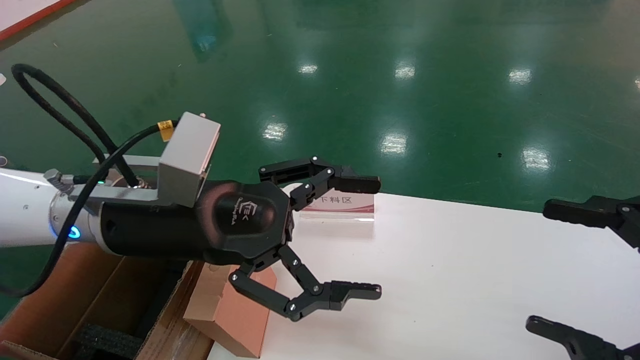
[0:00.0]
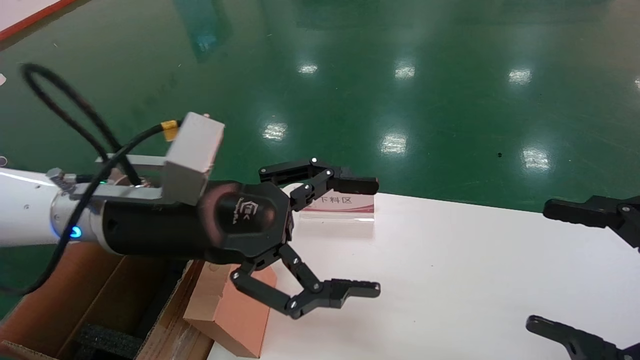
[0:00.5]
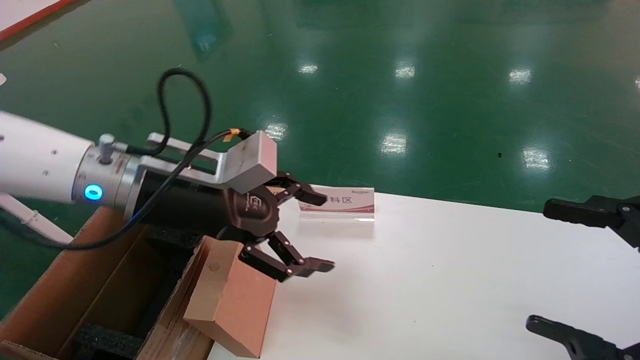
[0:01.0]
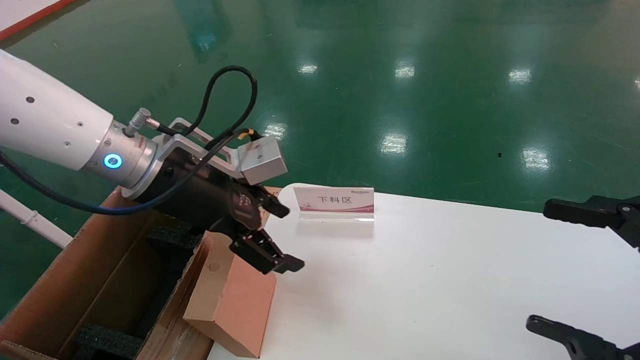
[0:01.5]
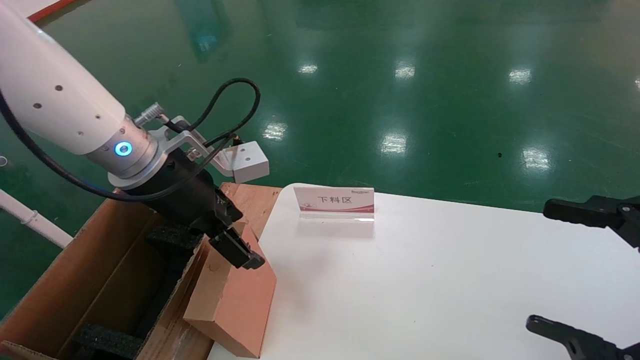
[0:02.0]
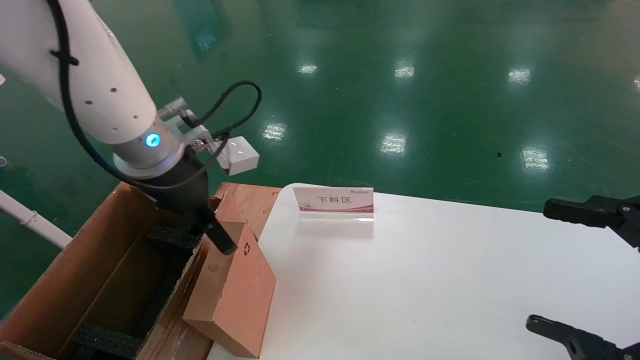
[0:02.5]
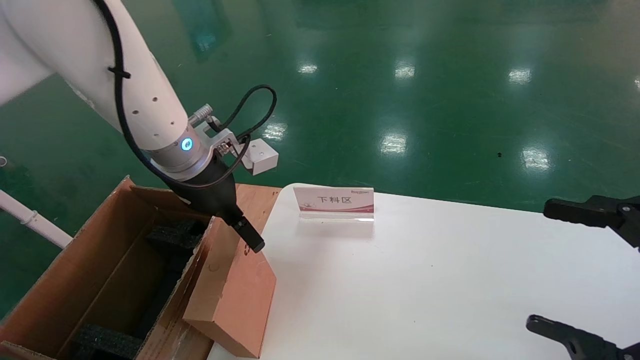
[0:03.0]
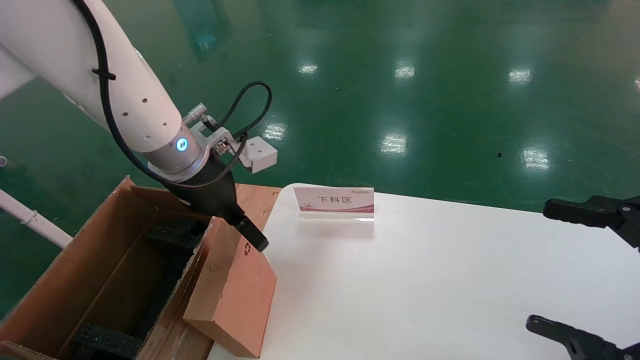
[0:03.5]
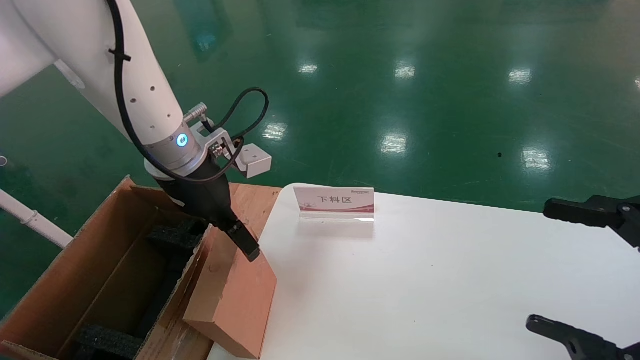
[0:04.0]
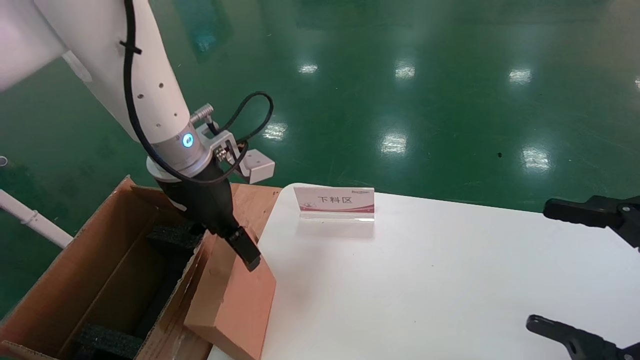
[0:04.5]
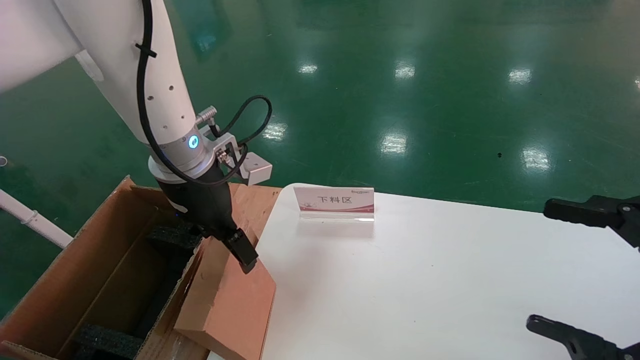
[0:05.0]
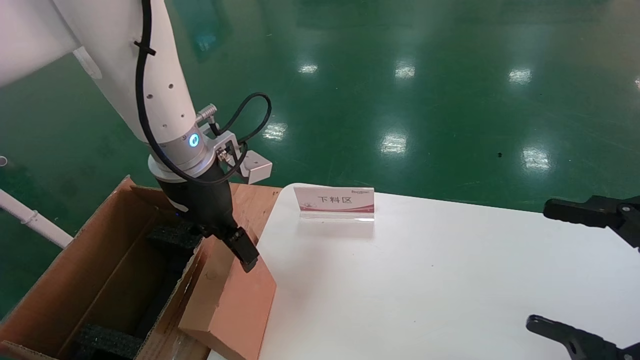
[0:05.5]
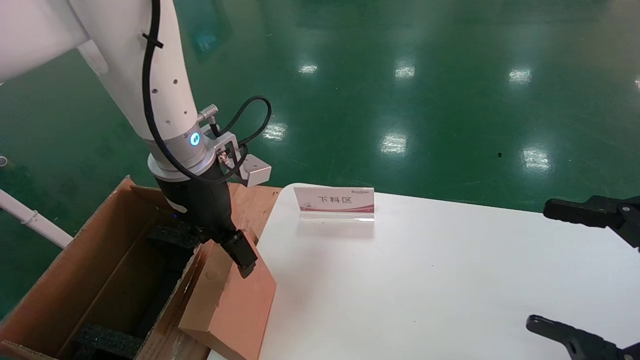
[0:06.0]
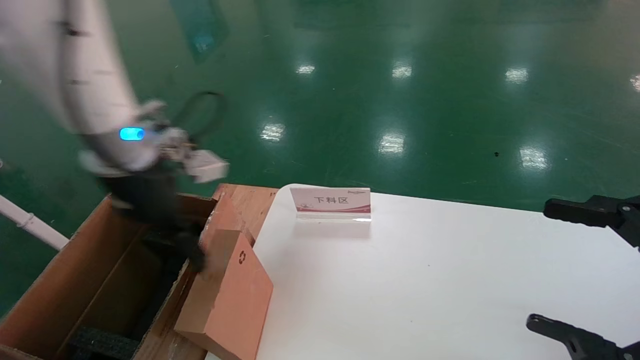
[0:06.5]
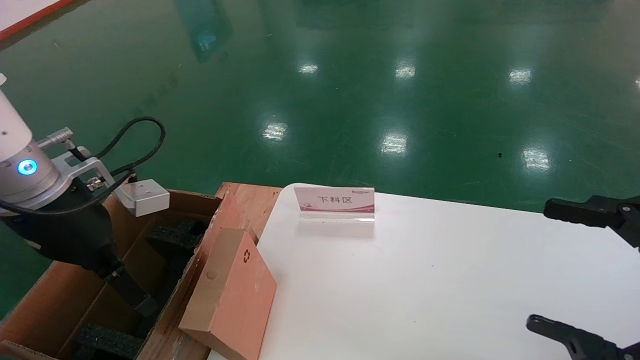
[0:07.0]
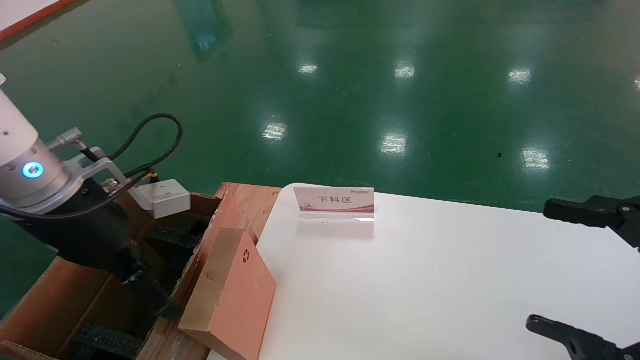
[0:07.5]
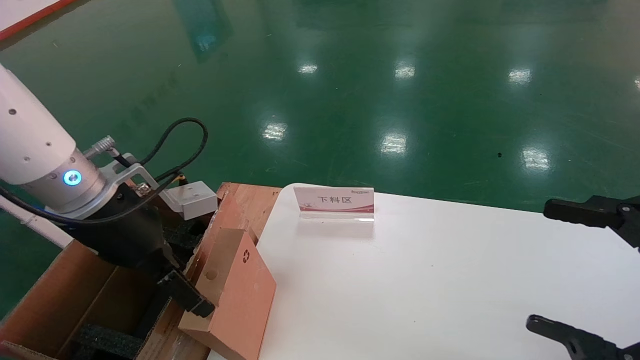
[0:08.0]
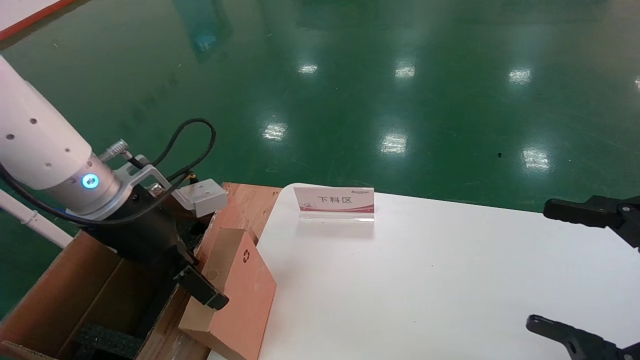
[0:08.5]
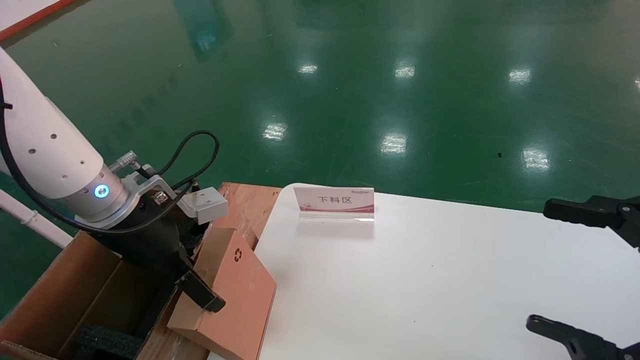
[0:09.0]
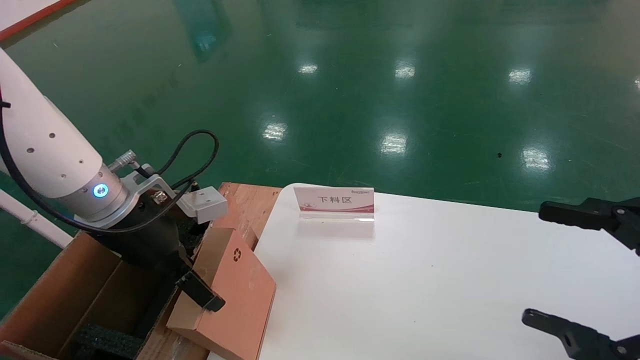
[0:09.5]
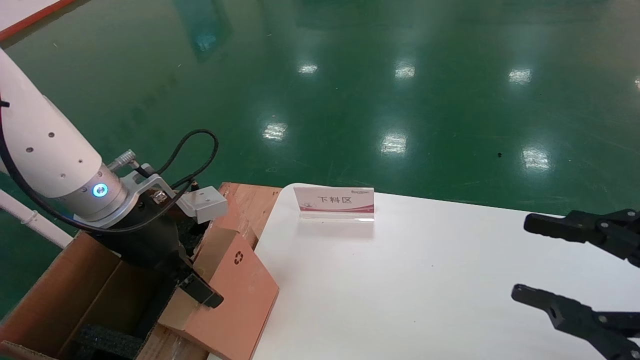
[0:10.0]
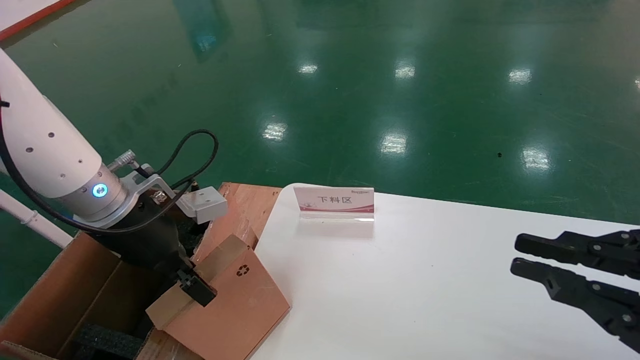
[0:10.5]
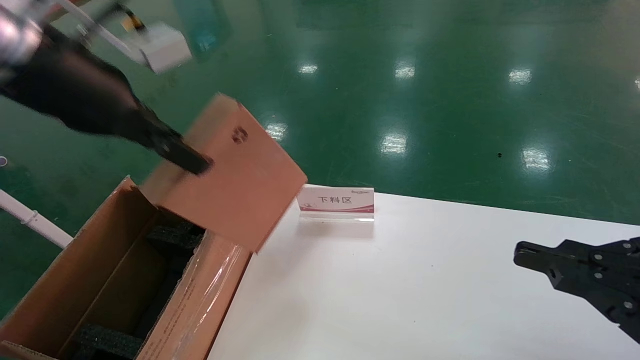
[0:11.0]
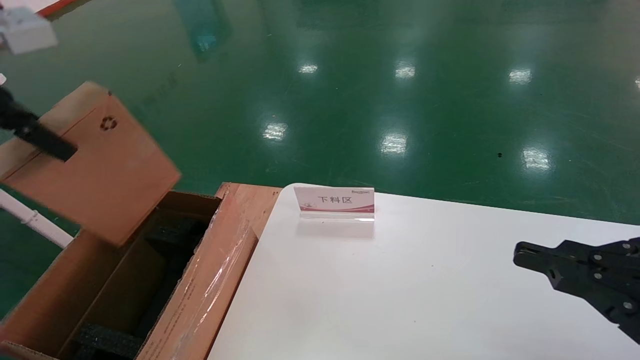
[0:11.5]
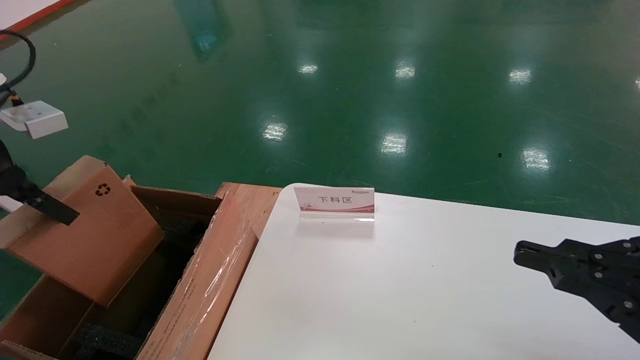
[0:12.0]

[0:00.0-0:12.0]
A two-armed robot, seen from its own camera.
Task of the whole recording: pick up the small cardboard box and load it into the large cardboard box.
Step, 0:01.0 to 0:10.5: Pick up the mouse and power cord box.
0:00.0 to 0:02.0: The left gripper shifts about 5 cm forward.
0:04.0 to 0:06.0: The grippers stay close to where they were, moving slightly.
0:06.0 to 0:08.0: The left gripper heads to the left and backward, covering about 10 cm.
0:08.0 to 0:10.0: The left gripper closes its fingers; the right gripper closes its fingers.
0:10.0 to 0:12.0: The left gripper moves to the left and upward, approximately 20 cm, and closes its fingers; the right gripper closes.

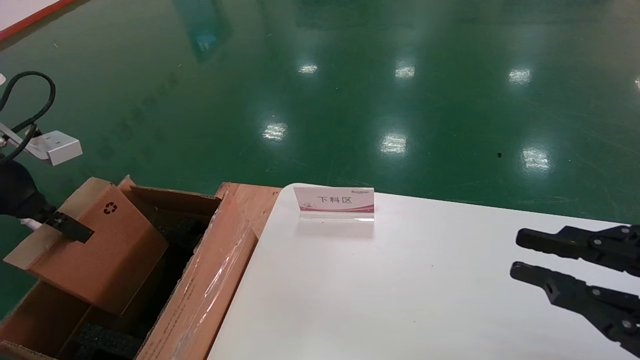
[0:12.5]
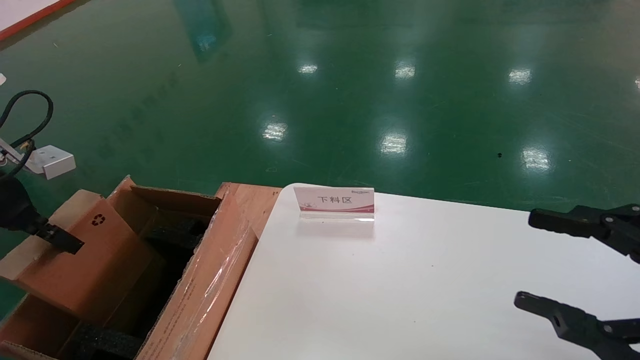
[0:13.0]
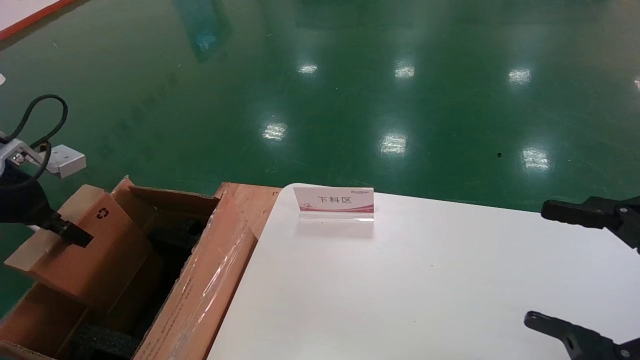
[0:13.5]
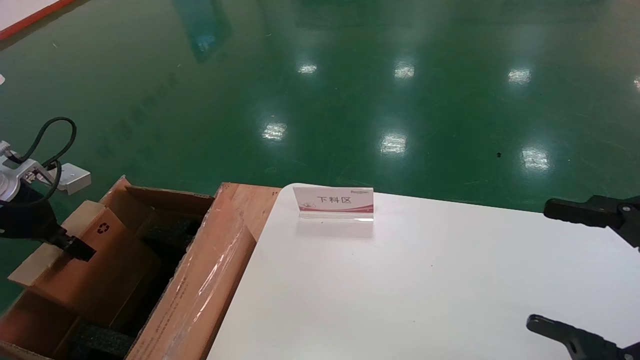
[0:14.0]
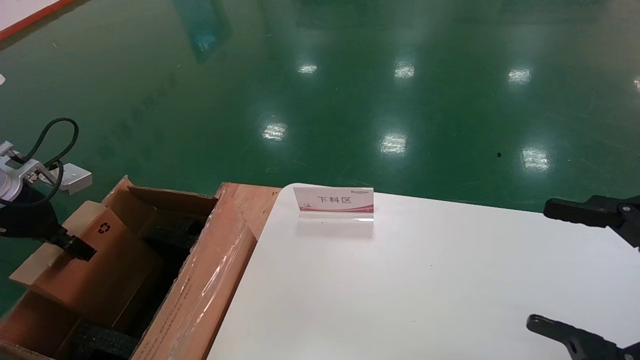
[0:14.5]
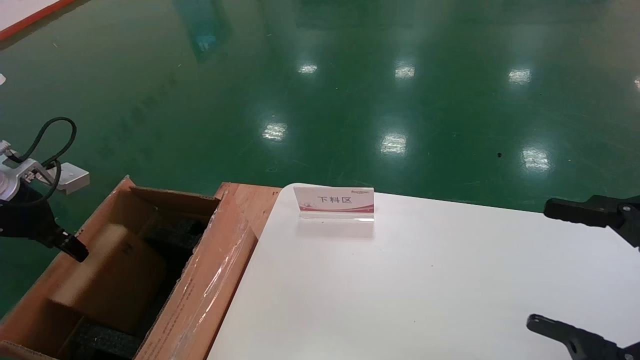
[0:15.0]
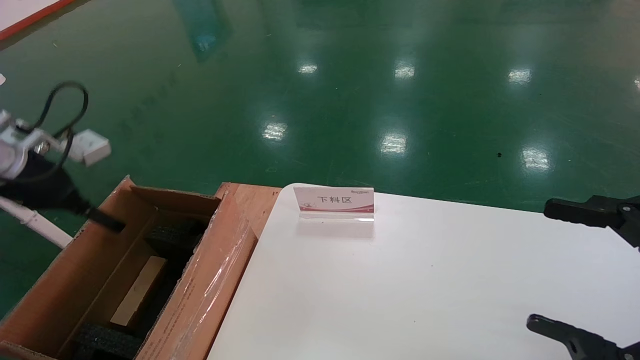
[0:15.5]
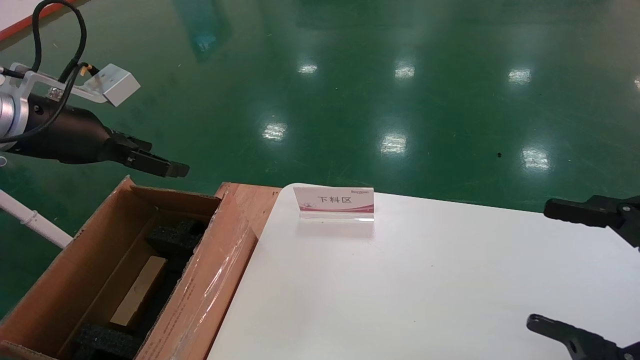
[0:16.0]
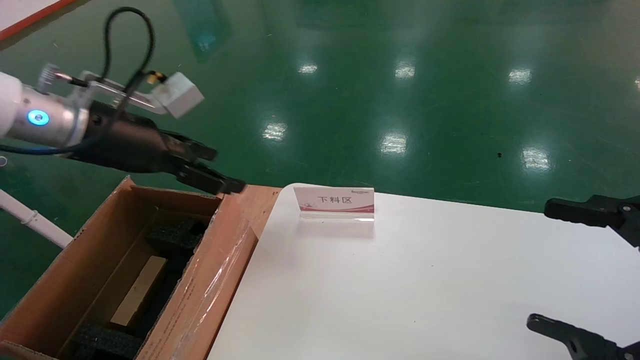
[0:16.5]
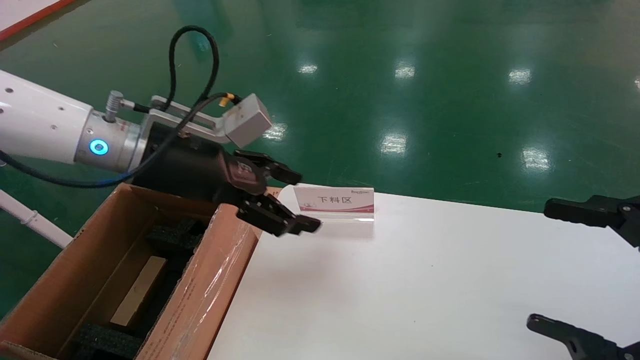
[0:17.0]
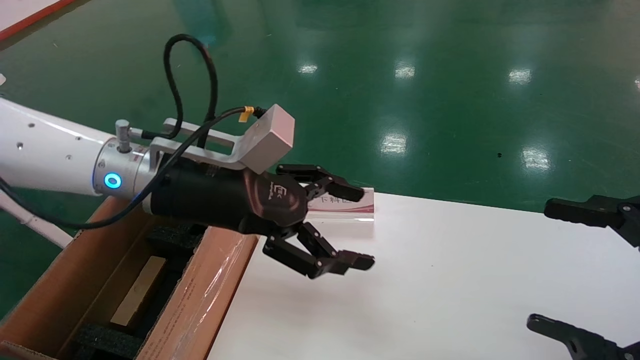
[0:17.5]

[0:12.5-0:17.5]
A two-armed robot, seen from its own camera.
Task of the whole recording: pick up the small cardboard box and load it into the large cardboard box.
Step, 0:12.5 to 0:15.0: Place the mouse and power cord box into the case.
0:12.5 to 0:15.0: The left gripper travels downward by approximately 5 cm. The right gripper opens up.
0:15.0 to 0:17.5: The left gripper goes some 30 cm to the right, and opens.
